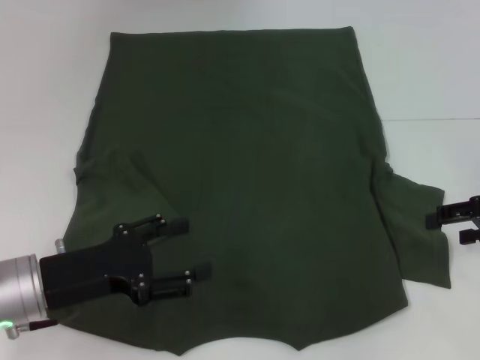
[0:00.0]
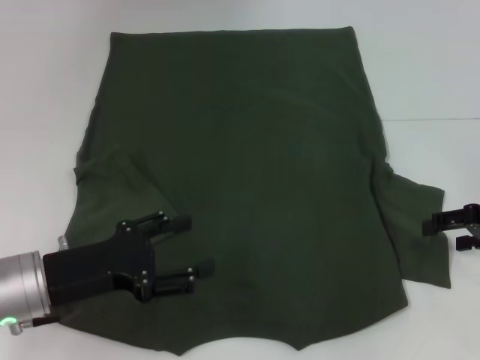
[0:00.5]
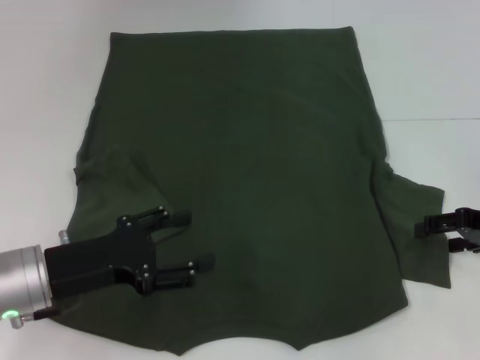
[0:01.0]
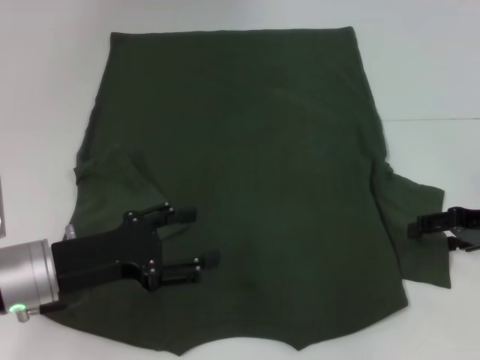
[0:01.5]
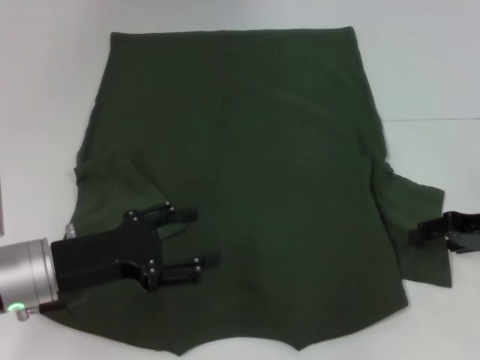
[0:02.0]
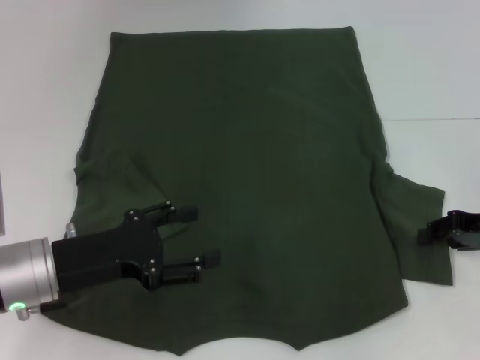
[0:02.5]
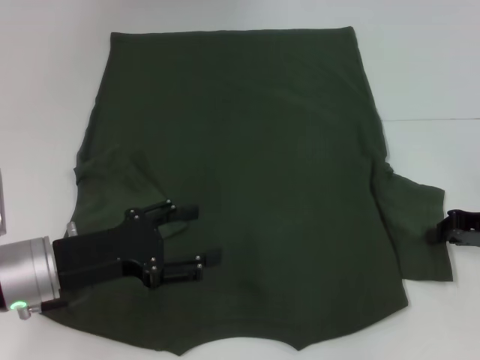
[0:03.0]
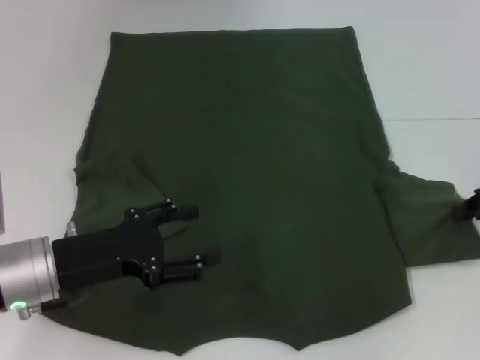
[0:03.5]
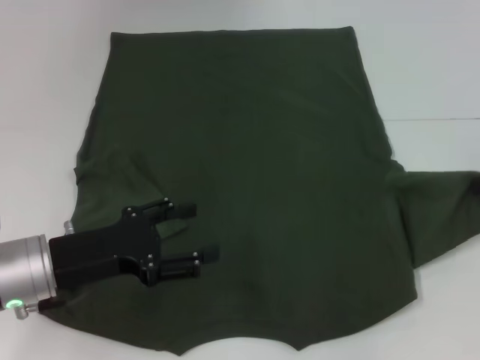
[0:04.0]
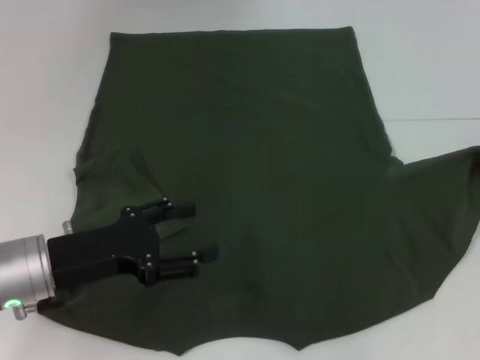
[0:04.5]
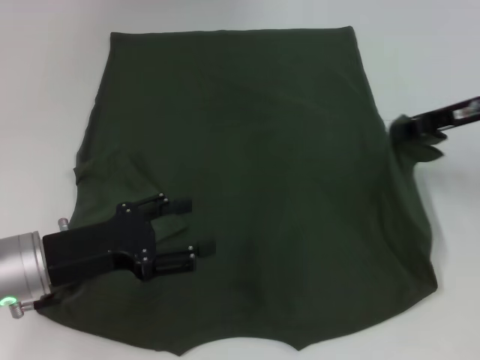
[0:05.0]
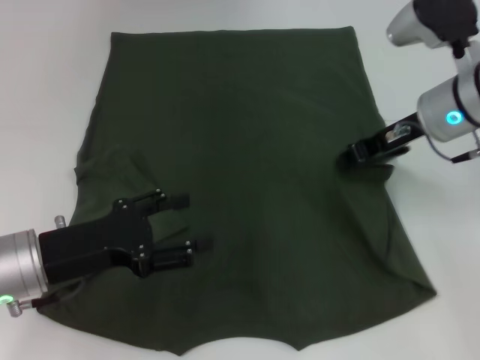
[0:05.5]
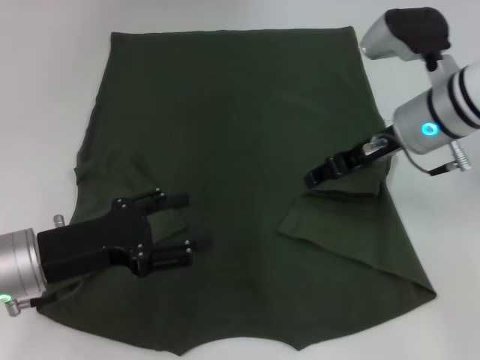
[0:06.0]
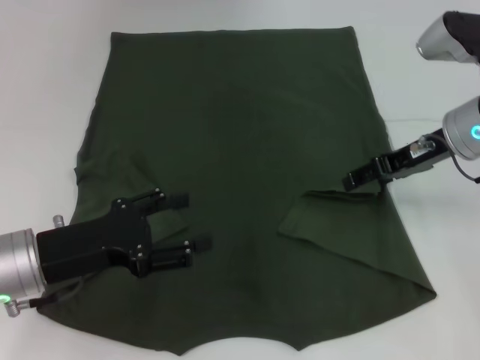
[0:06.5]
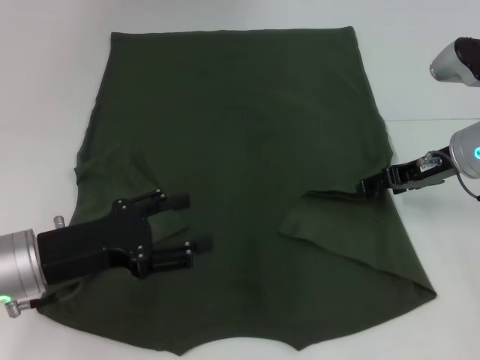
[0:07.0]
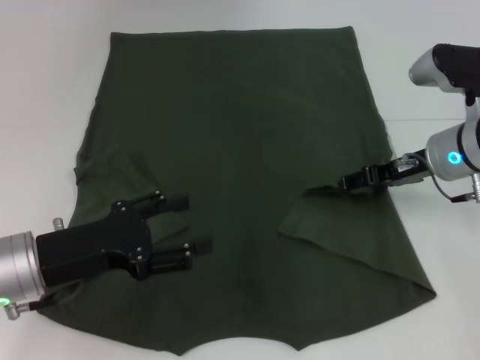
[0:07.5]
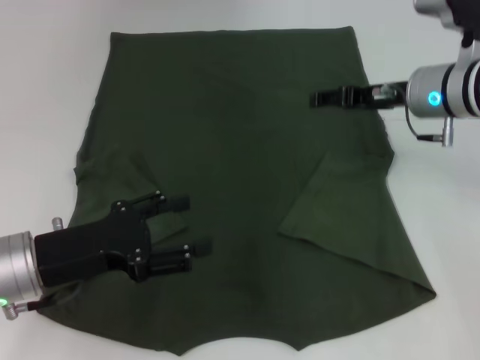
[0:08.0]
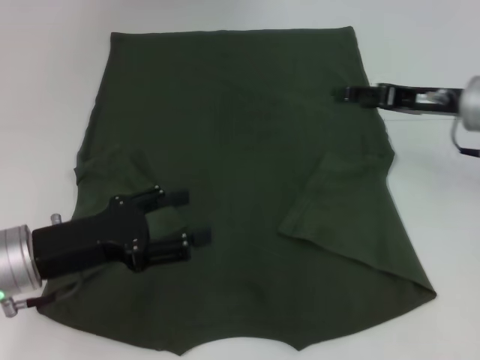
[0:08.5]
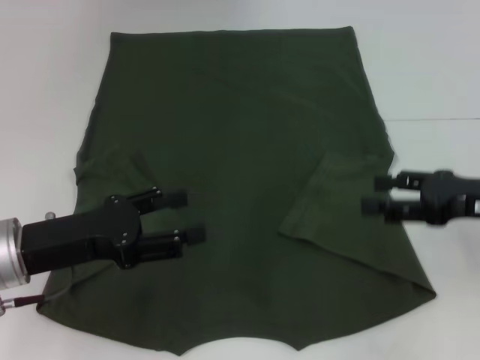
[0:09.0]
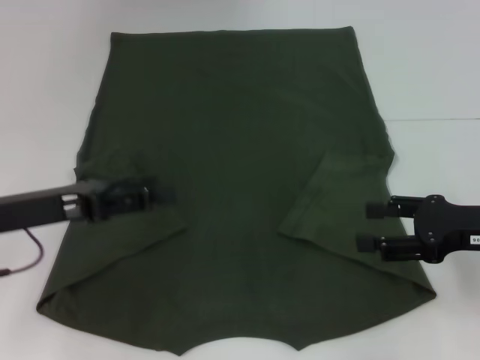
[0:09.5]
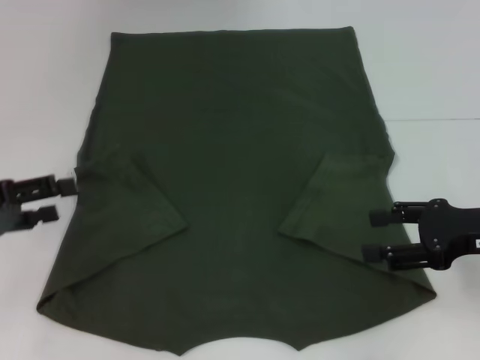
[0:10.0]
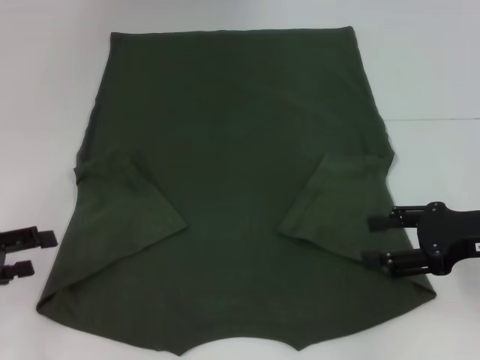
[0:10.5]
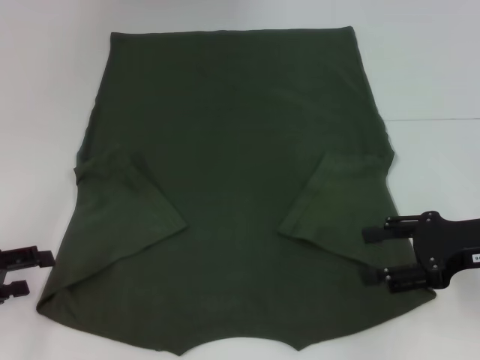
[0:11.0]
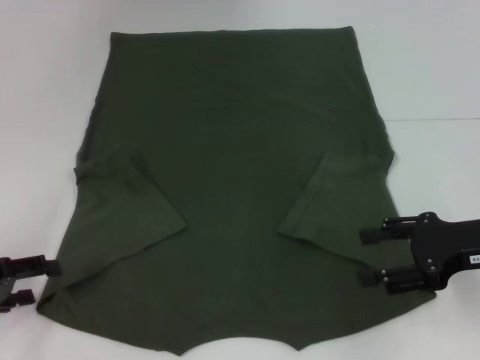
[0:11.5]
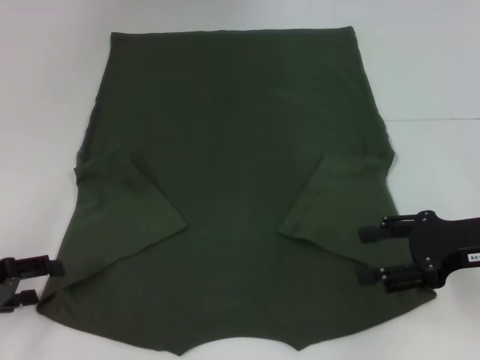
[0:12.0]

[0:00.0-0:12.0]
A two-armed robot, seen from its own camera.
Step, 0:00.0 to 0:08.5: Fold the bottom right sleeve with your right hand.
0:00.0 to 0:02.0: The grippers make only small movements.
0:02.0 to 0:04.0: The right gripper shifts some 5 cm upward, and closes its fingers.
0:04.0 to 0:06.0: The right gripper heads to the left, covering roughly 20 cm, and opens up.
0:06.0 to 0:08.0: The right gripper opens up.
0:08.0 to 0:10.0: The right gripper goes roughly 15 cm backward and to the right; the left gripper heads to the left, covering some 10 cm.
0:10.0 to 0:12.0: The left gripper heads downward, covering some 5 cm.

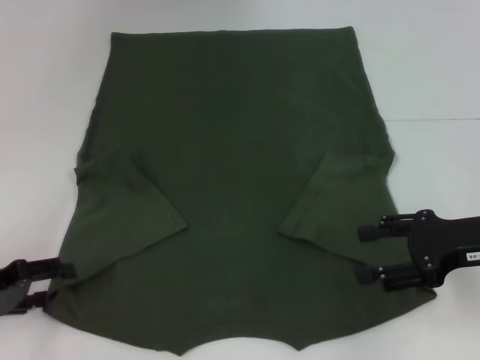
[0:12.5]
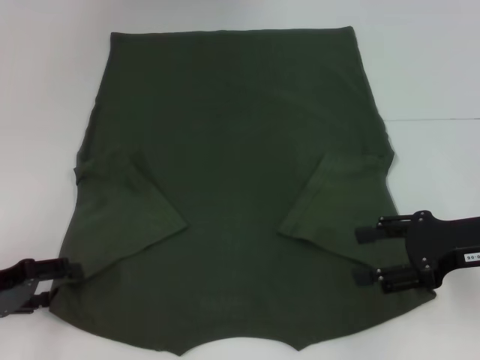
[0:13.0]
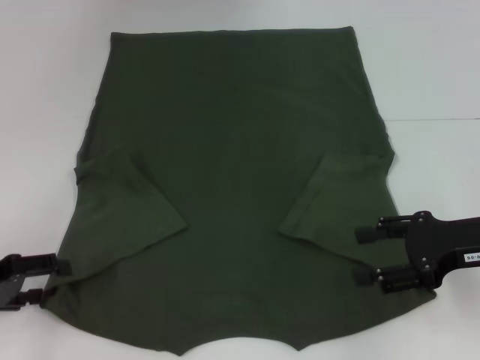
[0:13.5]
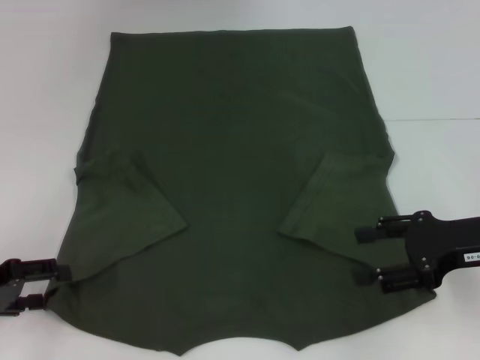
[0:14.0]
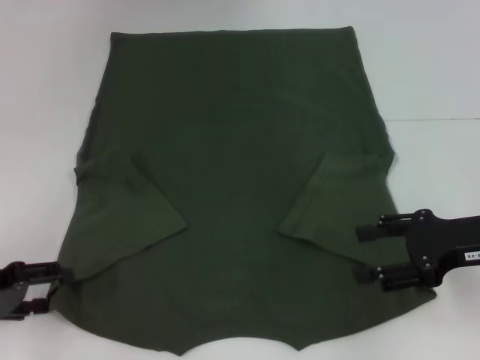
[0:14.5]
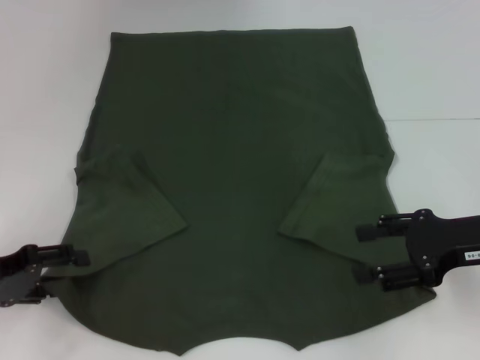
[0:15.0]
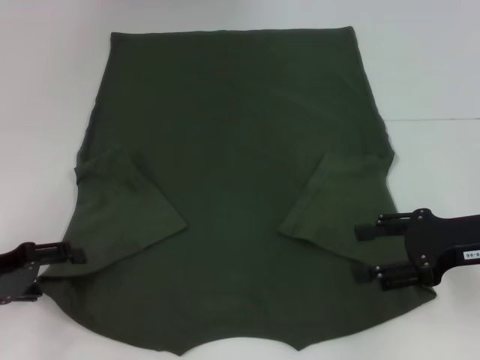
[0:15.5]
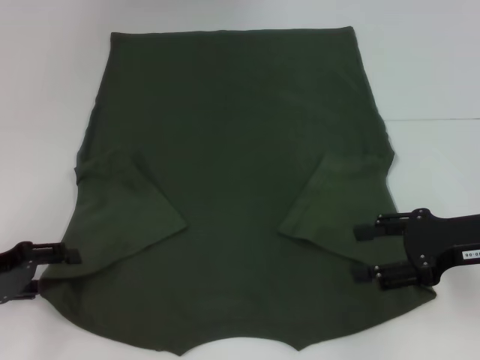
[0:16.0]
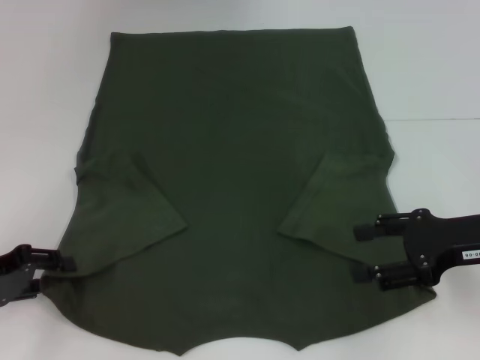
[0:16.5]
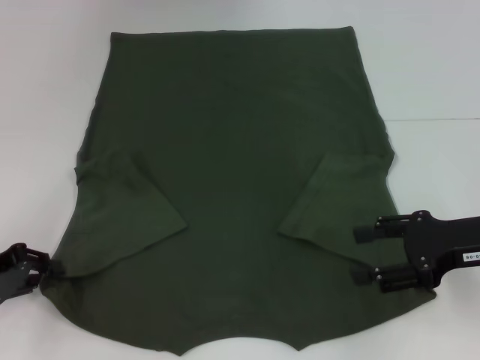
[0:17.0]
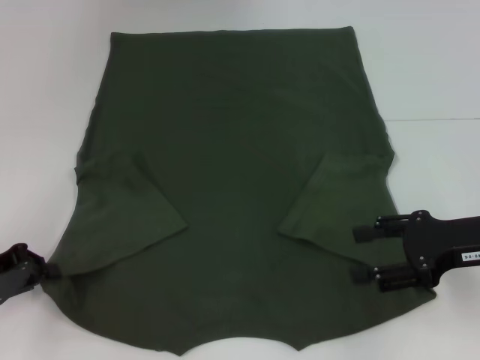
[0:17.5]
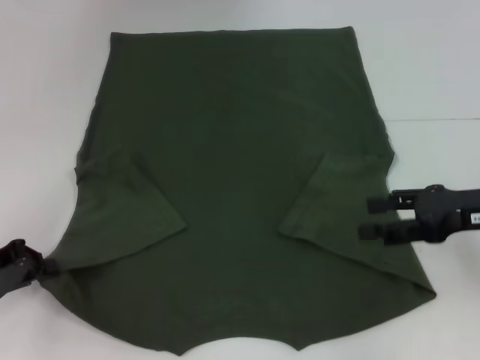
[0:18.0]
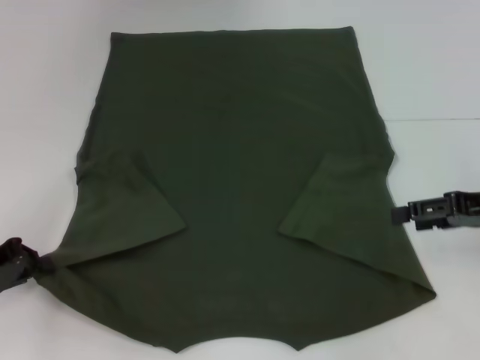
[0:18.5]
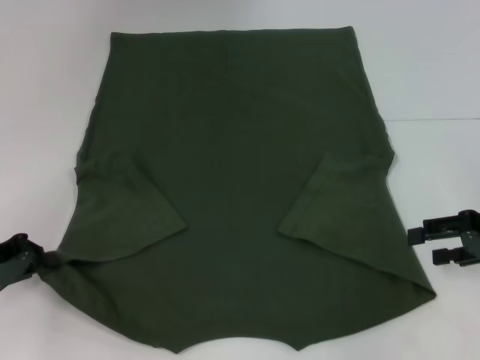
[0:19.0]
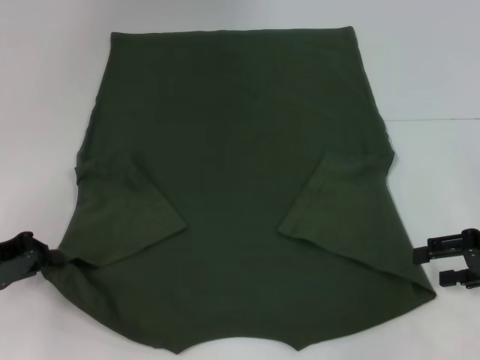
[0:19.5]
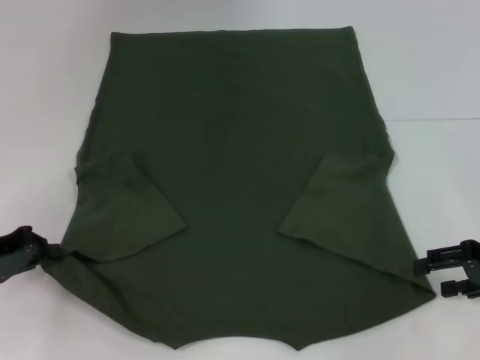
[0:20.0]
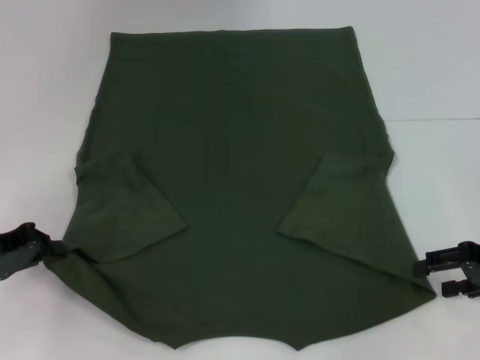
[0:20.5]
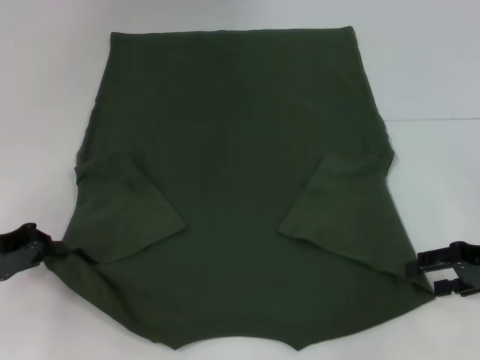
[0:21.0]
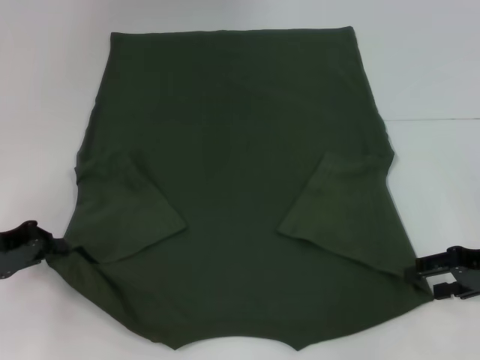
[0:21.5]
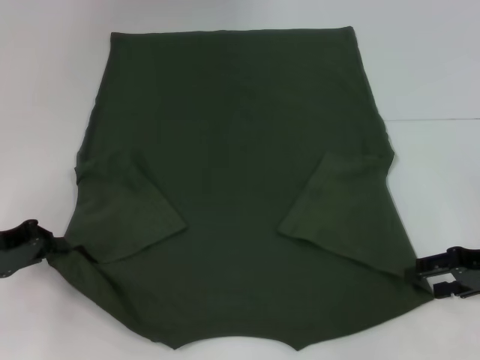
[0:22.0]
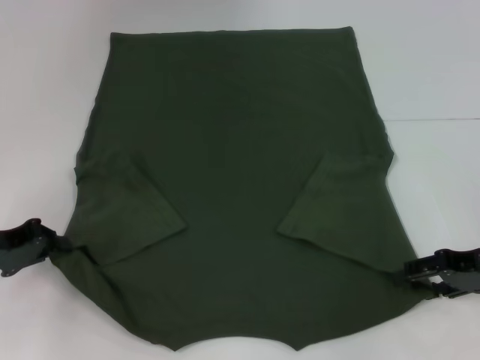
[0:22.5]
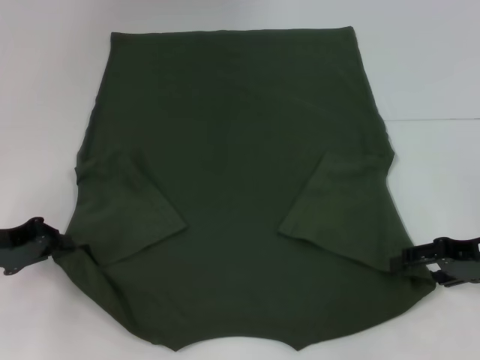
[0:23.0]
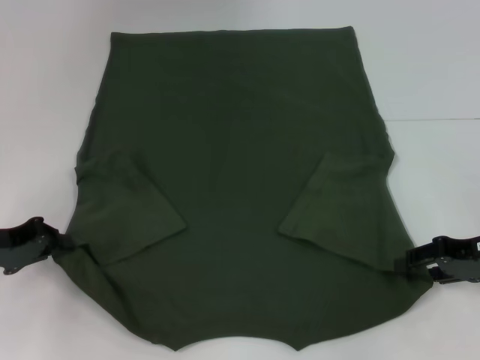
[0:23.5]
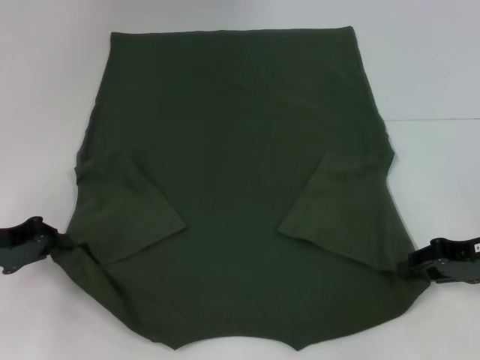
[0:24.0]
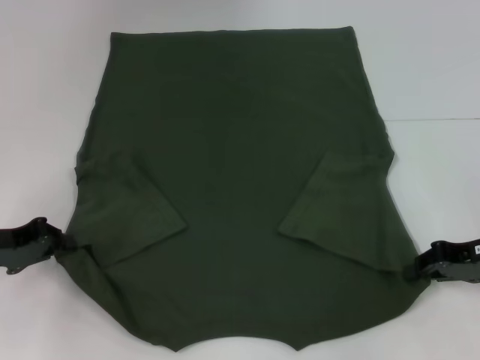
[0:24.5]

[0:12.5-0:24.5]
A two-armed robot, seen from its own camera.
Step, 0:12.5 to 0:17.5: Grab the bottom left corner with your left hand.
0:12.5 to 0:14.5: The grippers stay close to where they were, moving slightly.
0:14.5 to 0:16.5: The left gripper closes its fingers.
0:16.5 to 0:18.5: The right gripper ends up approximately 5 cm from where it was, while the left gripper closes up.
0:18.5 to 0:20.5: The right gripper changes place by some 5 cm.
0:20.5 to 0:22.5: The grippers make only small movements.
0:22.5 to 0:24.5: The right gripper closes.

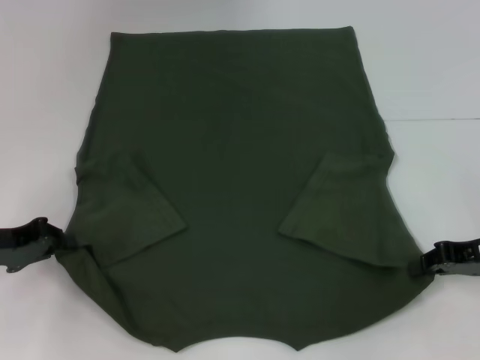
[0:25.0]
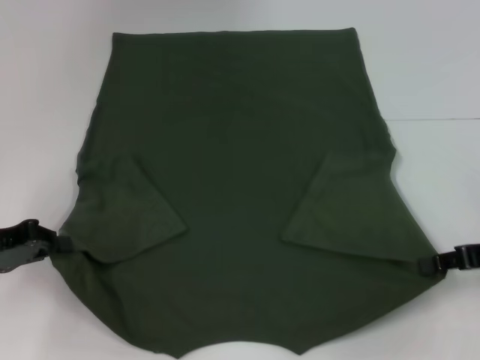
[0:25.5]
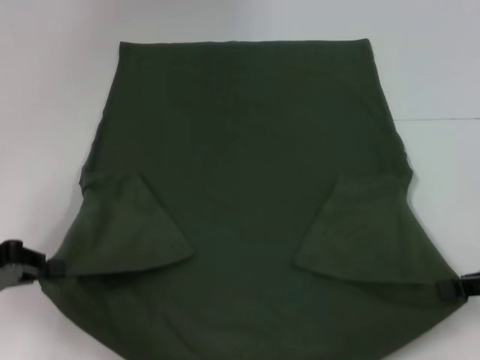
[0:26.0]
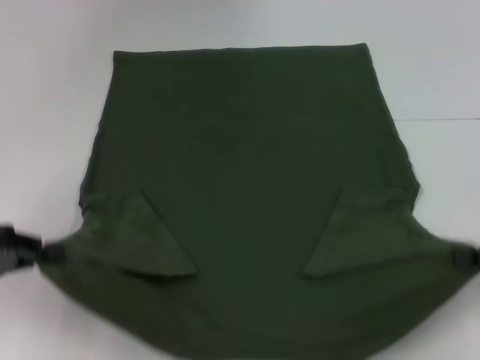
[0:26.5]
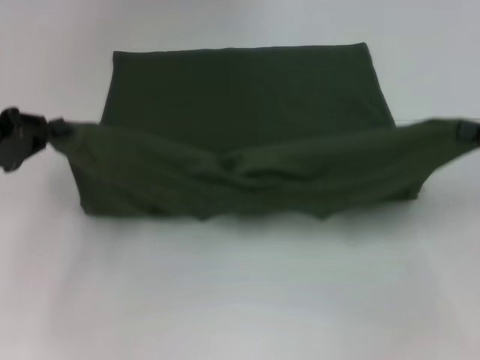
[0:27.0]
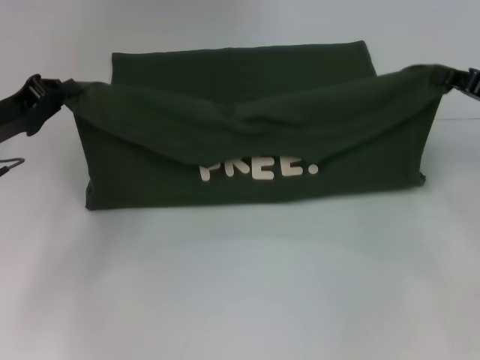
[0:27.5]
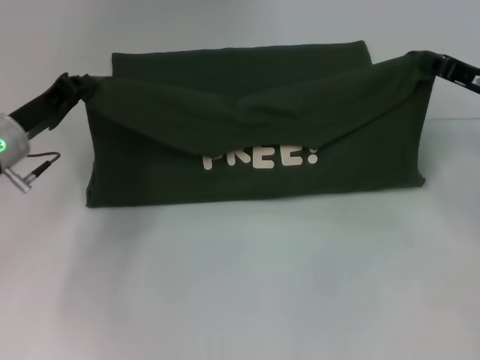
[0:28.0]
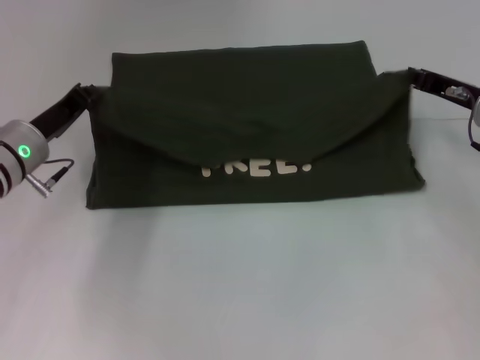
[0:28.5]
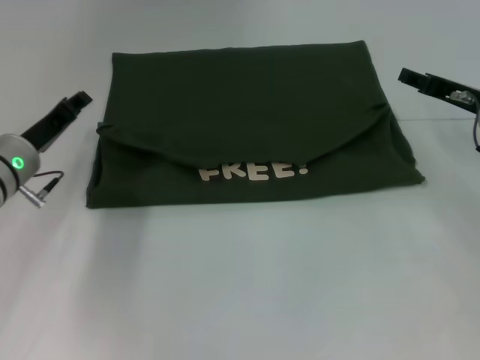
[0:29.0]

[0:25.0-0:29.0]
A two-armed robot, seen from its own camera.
0:25.0 to 0:27.0: The left gripper moves upward, some 5 cm; the right gripper travels upward and to the right by roughly 10 cm.
0:27.0 to 0:29.0: The left gripper heads to the right, downward and forward, covering roughly 10 cm, while the right gripper heads forward and to the left, covering approximately 10 cm, and opens.
